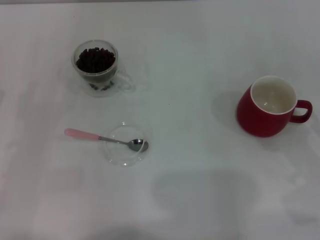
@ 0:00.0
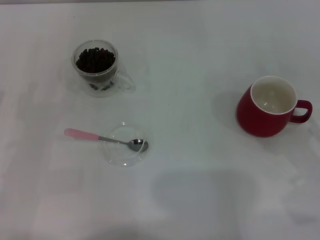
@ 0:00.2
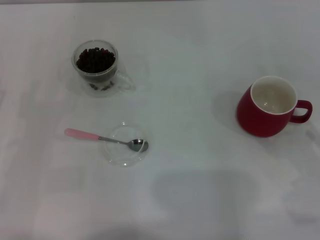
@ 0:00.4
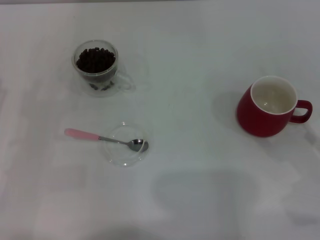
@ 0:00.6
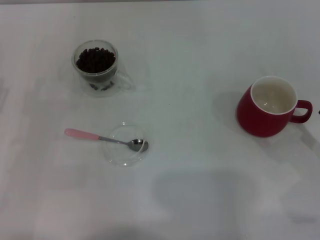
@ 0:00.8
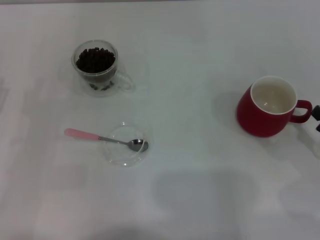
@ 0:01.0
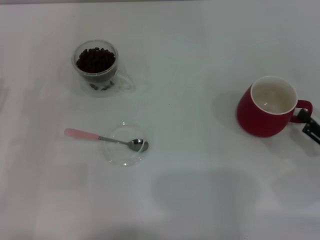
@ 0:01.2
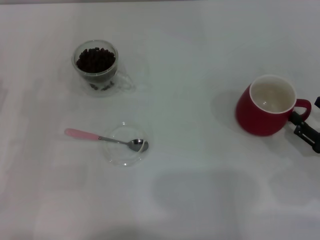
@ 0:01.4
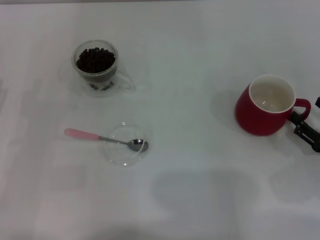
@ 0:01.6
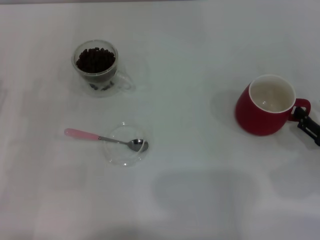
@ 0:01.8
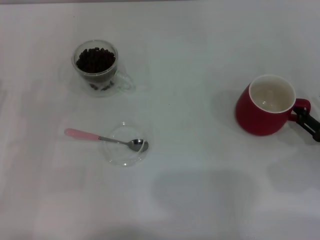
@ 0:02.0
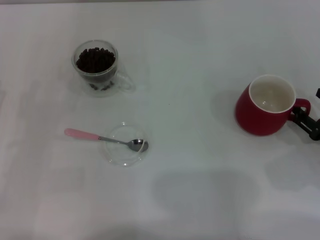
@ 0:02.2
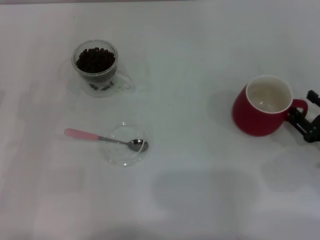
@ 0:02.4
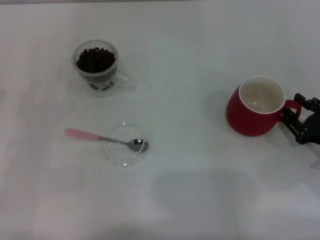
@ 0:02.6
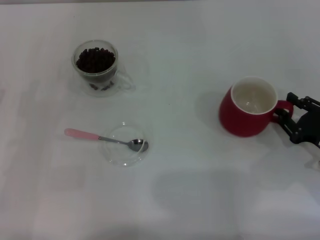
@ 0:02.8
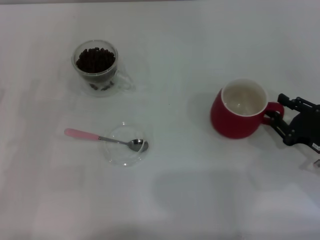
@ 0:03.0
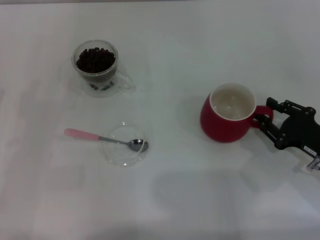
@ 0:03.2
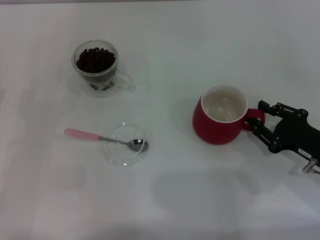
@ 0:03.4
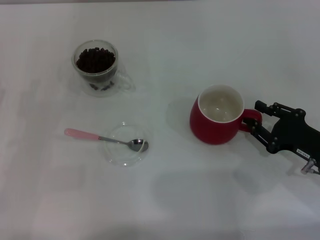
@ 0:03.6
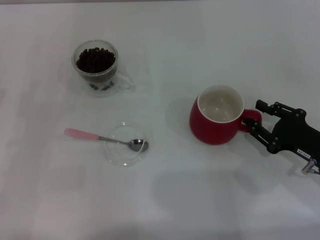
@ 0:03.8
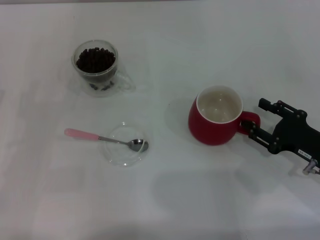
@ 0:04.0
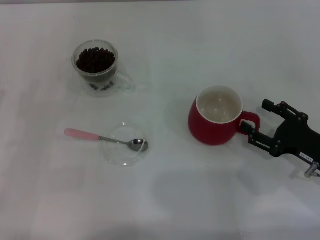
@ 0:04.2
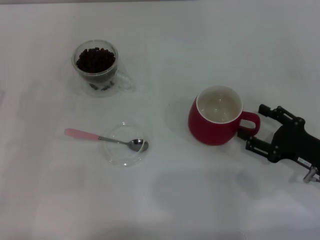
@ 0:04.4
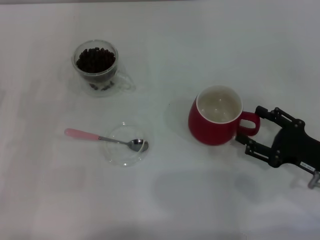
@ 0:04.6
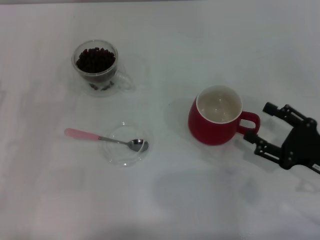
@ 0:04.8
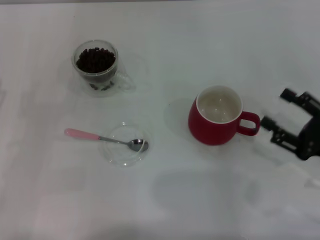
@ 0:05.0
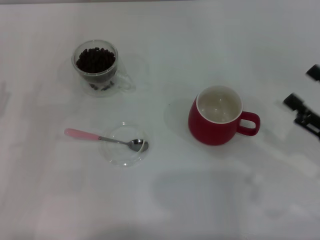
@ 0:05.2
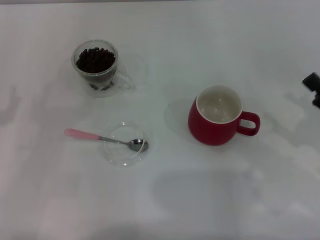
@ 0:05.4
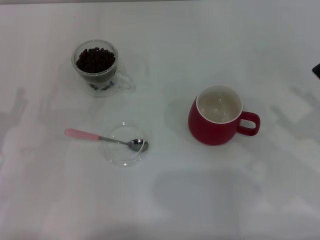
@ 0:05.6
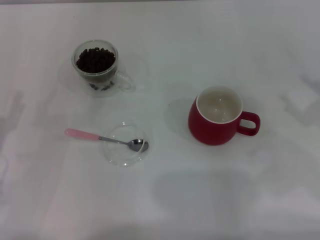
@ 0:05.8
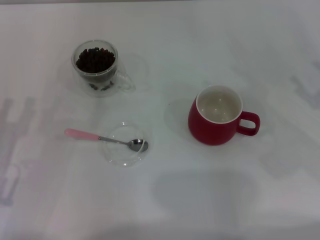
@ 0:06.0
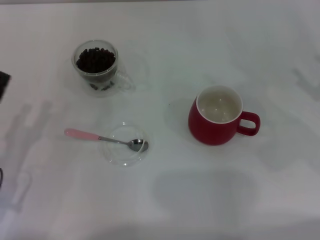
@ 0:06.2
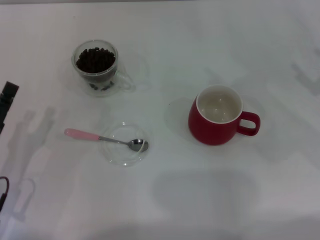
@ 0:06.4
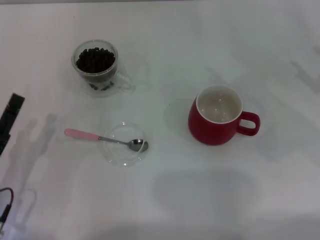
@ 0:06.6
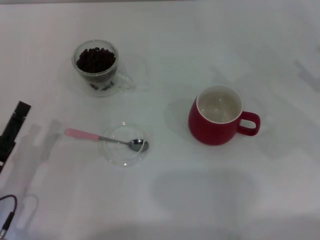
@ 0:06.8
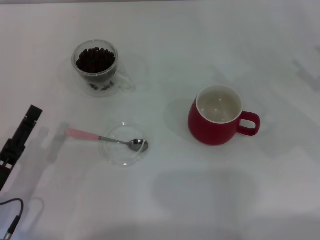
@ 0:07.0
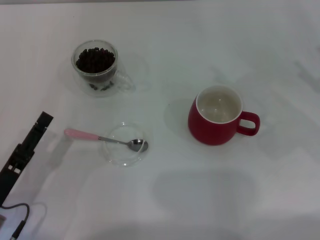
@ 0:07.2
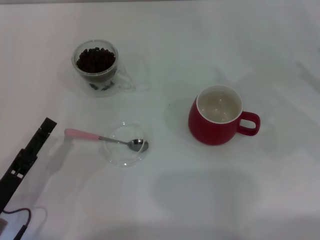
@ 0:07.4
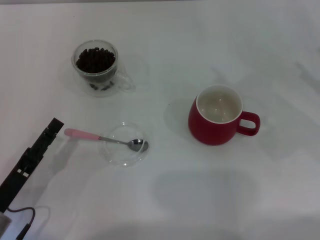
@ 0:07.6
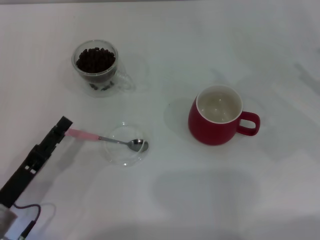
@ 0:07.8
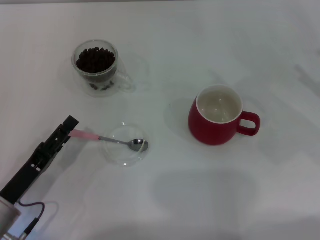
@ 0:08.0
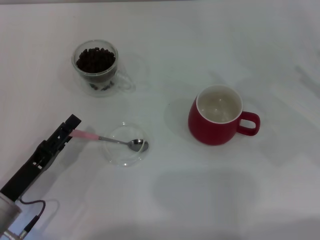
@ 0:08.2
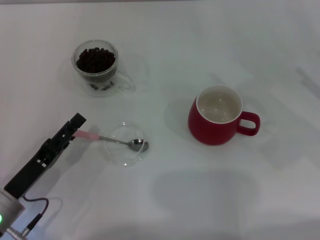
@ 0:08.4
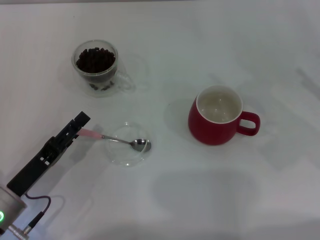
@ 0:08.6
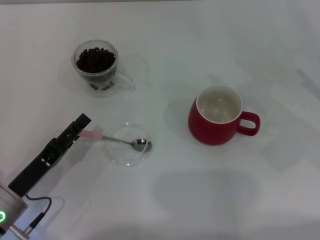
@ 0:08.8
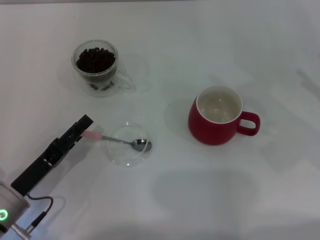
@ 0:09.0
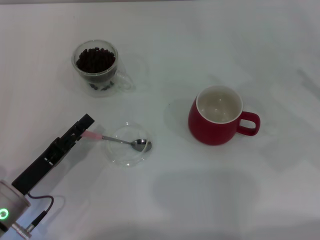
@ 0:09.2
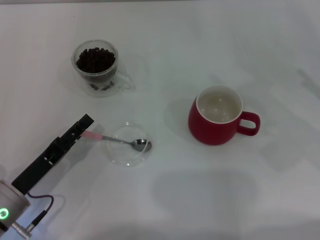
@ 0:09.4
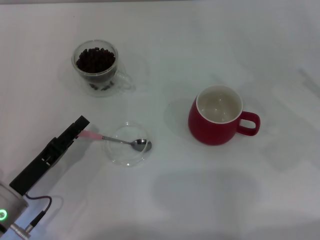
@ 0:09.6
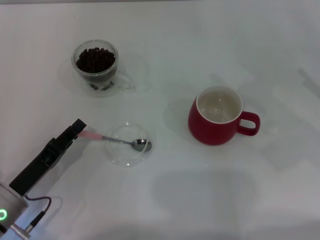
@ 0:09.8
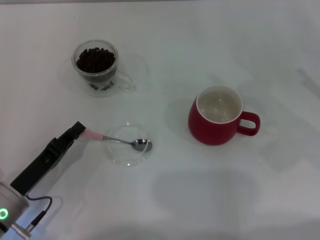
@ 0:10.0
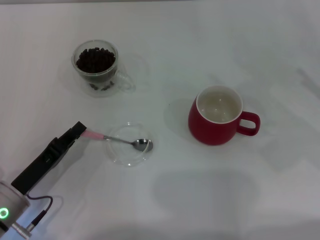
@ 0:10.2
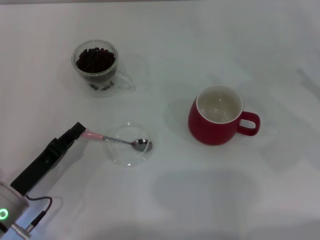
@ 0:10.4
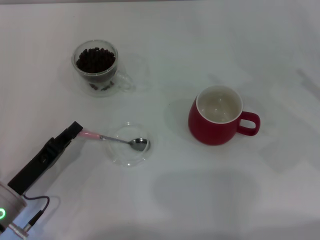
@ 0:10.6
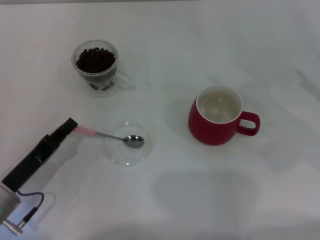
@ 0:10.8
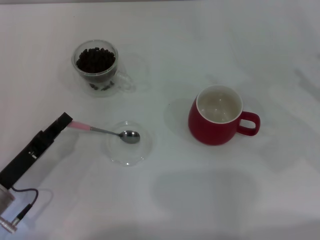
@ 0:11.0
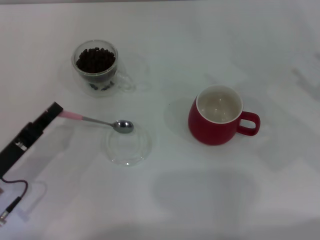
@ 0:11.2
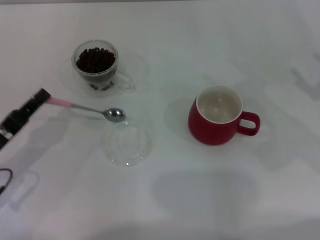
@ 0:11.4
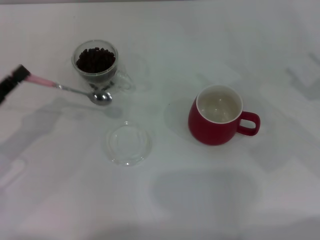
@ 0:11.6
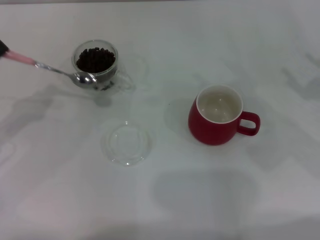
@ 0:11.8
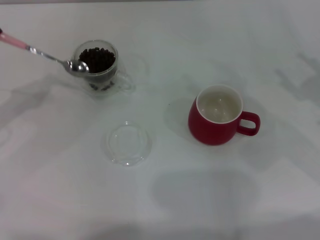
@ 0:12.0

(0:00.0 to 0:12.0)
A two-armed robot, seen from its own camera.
Task of the whole recording: Use a pink spoon to take out the coffee beans from the glass and pour them into the red cup.
Step, 0:05.0 - 0:11.2: Pick up the spoon with the right gripper.
0:00.0 - 0:01.6: The right gripper shifts by approximately 5 cm.
0:01.6 - 0:03.0: The right gripper closes.
0:03.0 - 0:04.4: The right gripper opens.
0:04.4 - 0:06.0: The right gripper is displaced upward and to the right by some 10 cm.
0:06.0 - 0:07.6: The left gripper ends up roughly 5 cm from where it was.
0:07.6 - 0:09.0: The grippers move only a little.
0:09.0 - 0:10.4: The left gripper closes.
0:10.4 - 0:12.0: The left gripper travels upward, to the left and forward by about 20 cm.

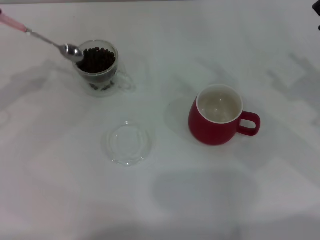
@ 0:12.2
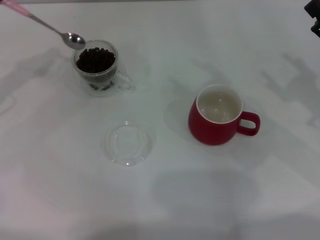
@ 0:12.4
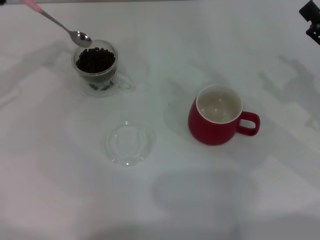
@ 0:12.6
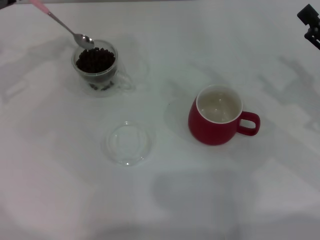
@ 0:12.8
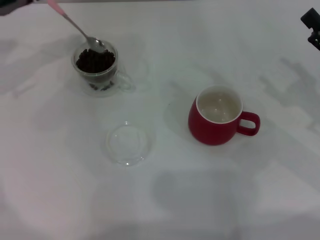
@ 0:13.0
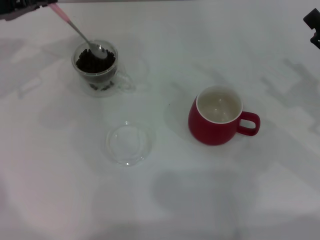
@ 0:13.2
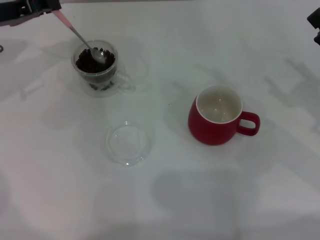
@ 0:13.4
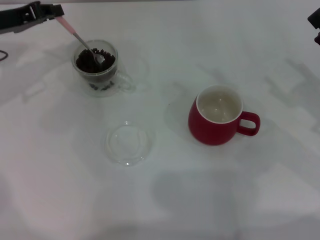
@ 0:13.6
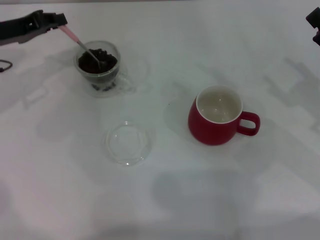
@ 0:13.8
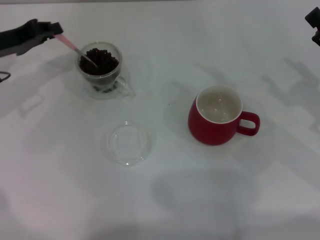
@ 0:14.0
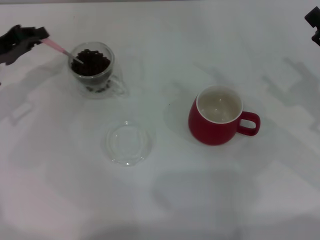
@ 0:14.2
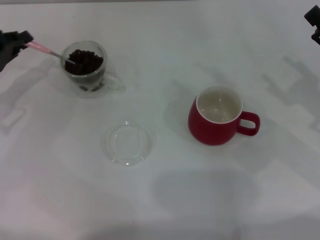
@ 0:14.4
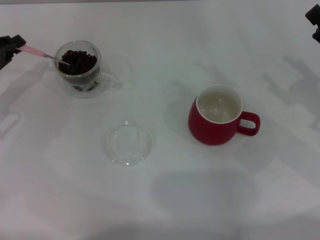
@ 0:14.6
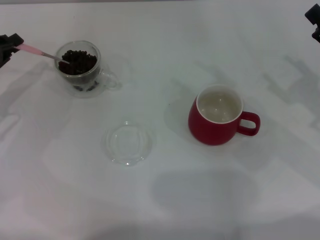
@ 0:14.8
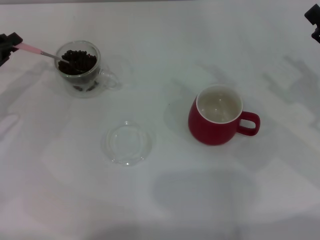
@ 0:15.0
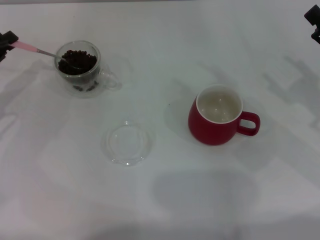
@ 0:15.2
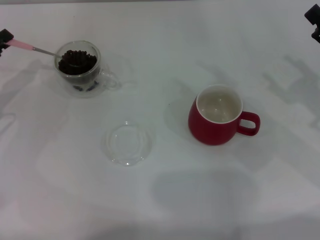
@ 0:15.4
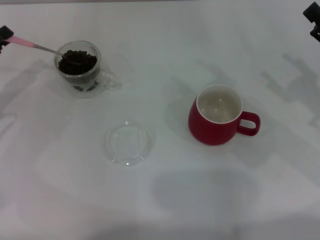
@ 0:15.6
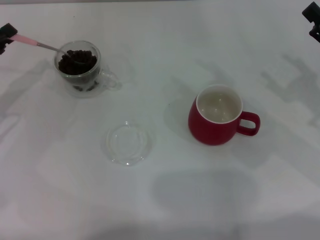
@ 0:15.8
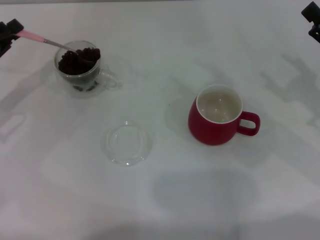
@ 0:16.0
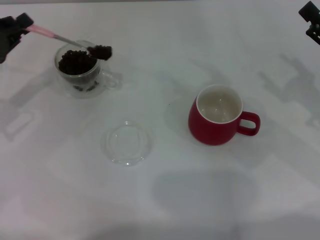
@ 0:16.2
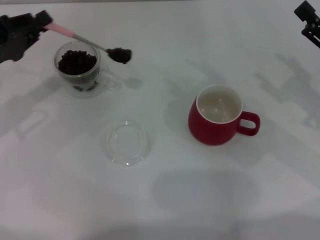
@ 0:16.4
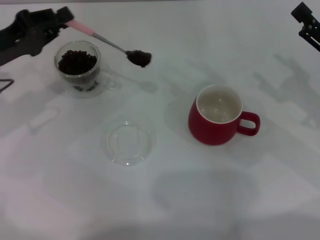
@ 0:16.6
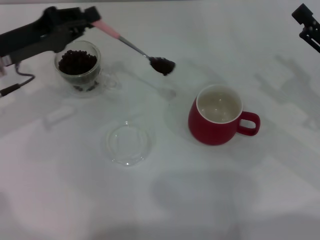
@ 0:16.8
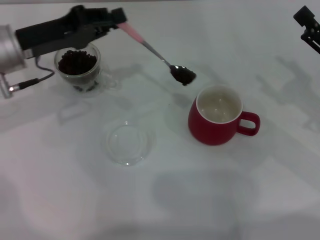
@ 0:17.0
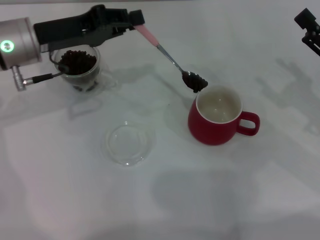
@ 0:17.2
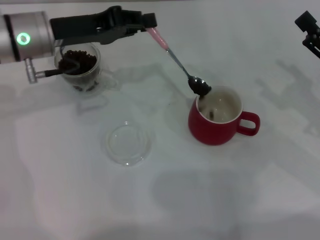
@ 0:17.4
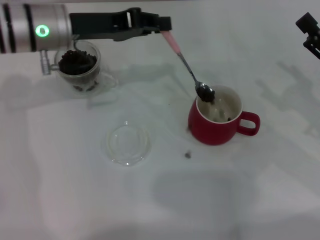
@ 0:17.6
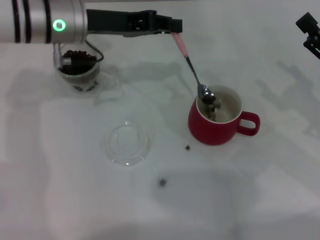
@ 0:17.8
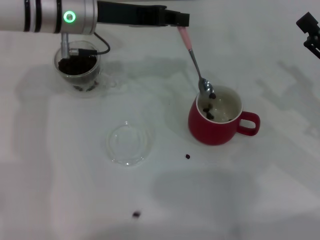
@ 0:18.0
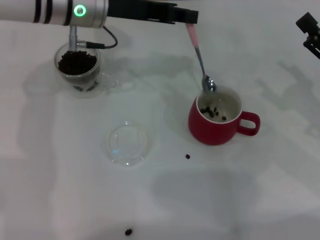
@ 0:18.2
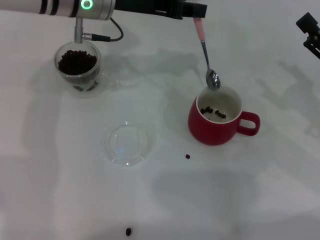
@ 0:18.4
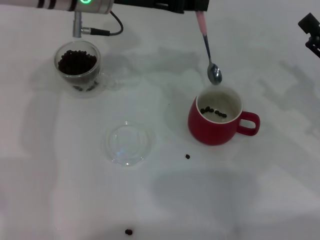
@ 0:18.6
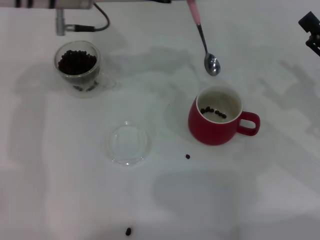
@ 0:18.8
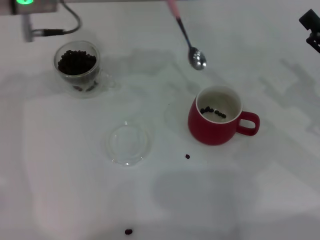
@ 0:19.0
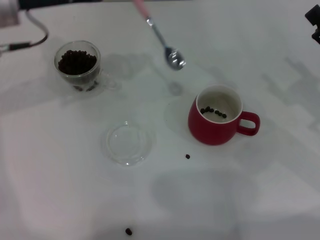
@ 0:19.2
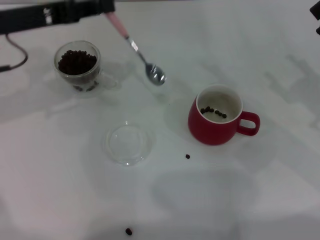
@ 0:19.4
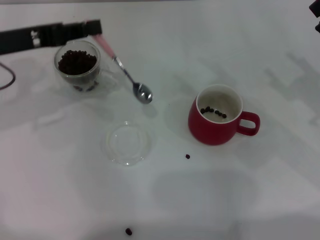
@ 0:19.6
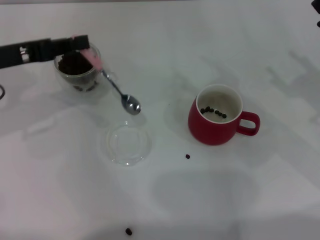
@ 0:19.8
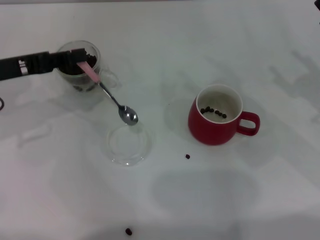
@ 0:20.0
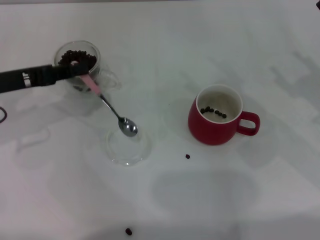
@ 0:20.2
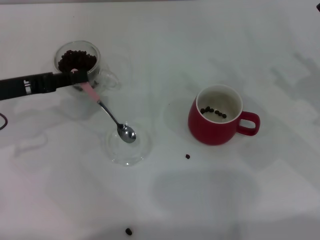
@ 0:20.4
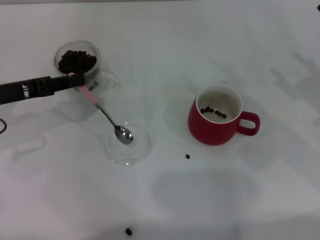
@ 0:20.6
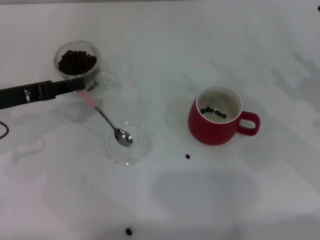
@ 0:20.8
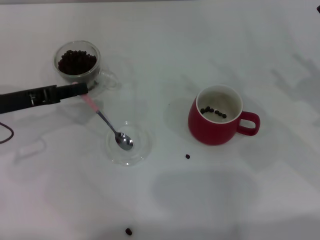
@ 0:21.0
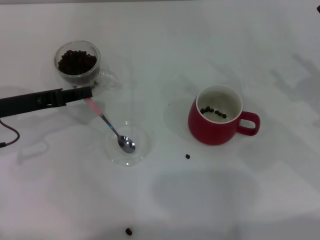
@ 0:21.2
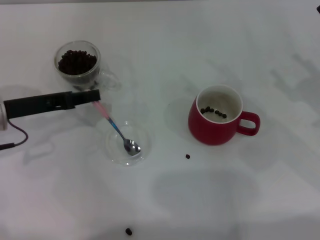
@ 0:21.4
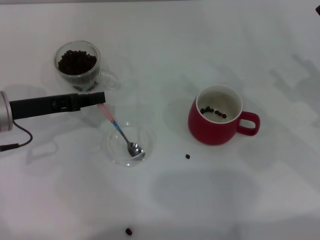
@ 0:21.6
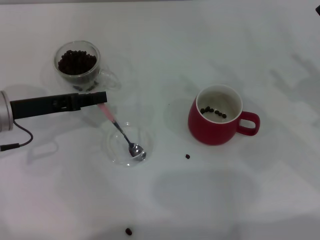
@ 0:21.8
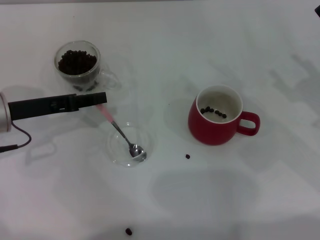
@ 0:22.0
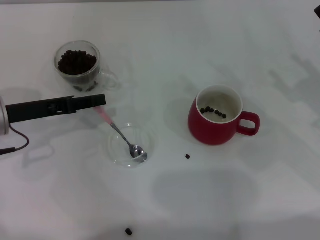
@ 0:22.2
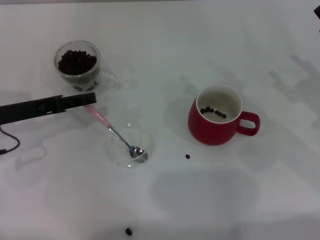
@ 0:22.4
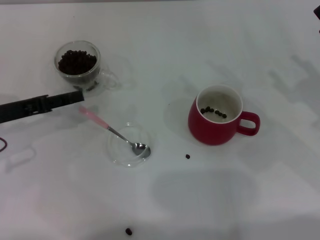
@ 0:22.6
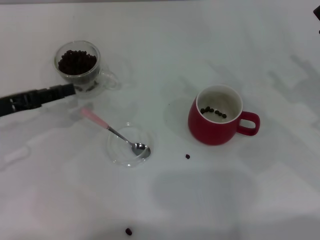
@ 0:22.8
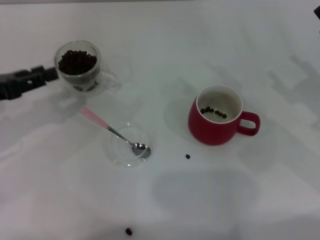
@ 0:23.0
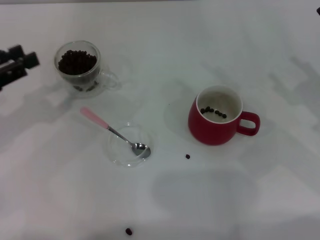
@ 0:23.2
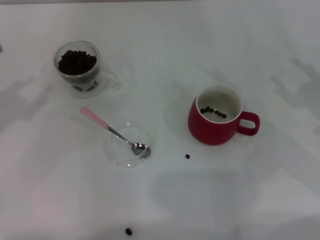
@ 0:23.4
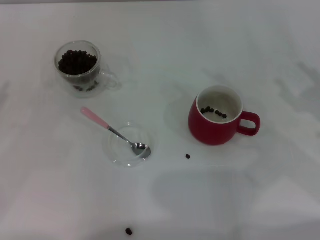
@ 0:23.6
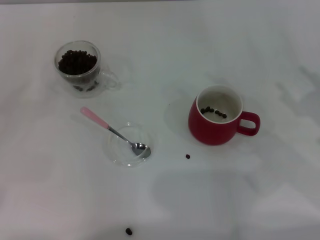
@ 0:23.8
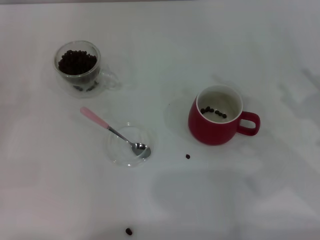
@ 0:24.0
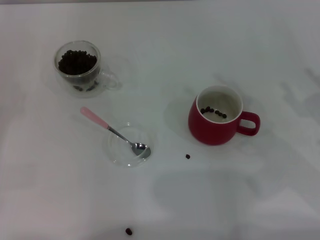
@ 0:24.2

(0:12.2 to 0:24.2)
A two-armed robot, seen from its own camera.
Task of the whole recording: Use a pink spoon to take out the coffee beans from the glass and pour them into the red cup.
0:12.2 - 0:13.8: The left gripper travels to the right and forward by roughly 10 cm.
0:13.8 - 0:15.2: The left gripper shifts some 10 cm backward and to the left.
0:15.2 - 0:16.6: The left gripper is displaced to the right by about 5 cm.
0:16.6 - 0:18.2: The left gripper is displaced to the right and forward by approximately 20 cm.
0:18.2 - 0:19.8: The left gripper travels to the left and backward by approximately 20 cm.
0:19.8 - 0:21.2: The left gripper moves downward, some 5 cm.
0:21.2 - 0:22.6: The left gripper opens up.
0:22.6 - 0:24.2: The left gripper goes roughly 15 cm to the left and backward.
